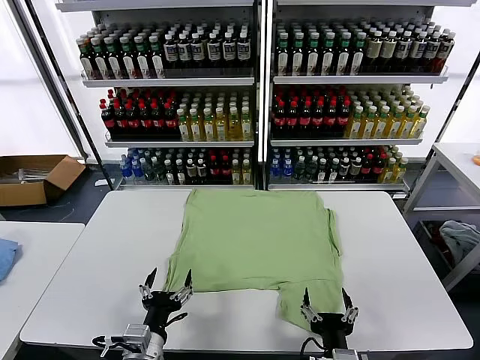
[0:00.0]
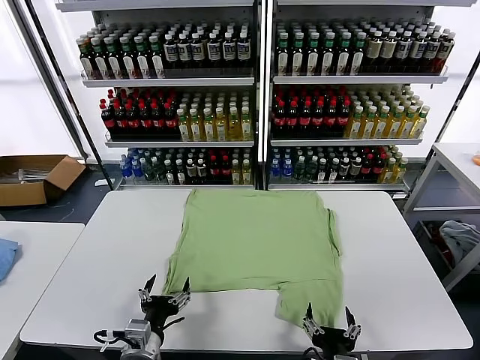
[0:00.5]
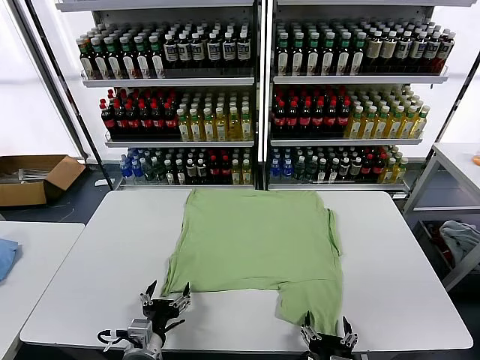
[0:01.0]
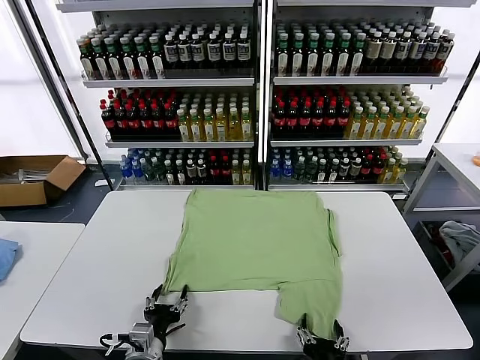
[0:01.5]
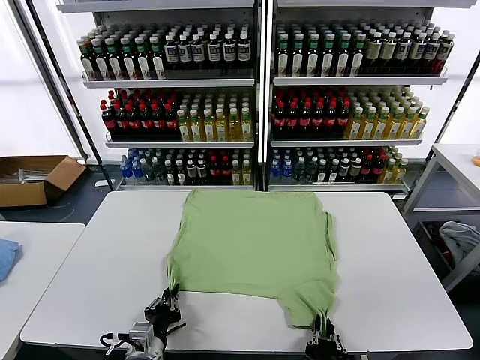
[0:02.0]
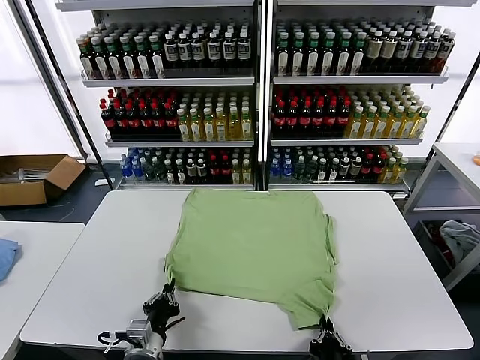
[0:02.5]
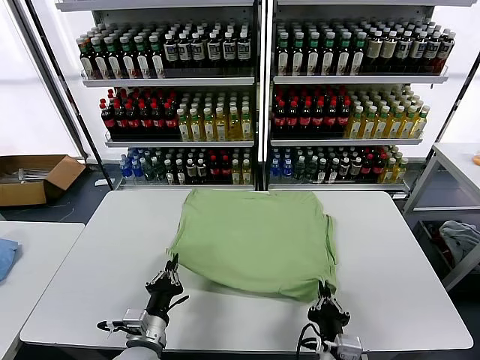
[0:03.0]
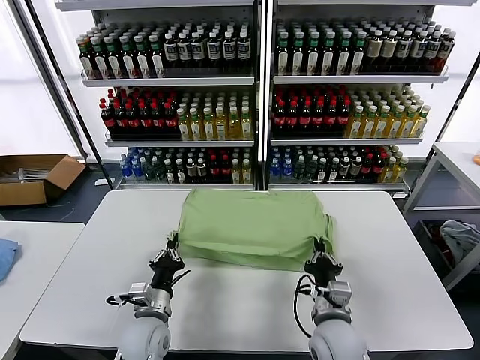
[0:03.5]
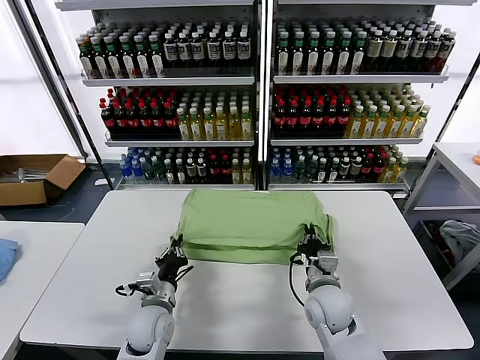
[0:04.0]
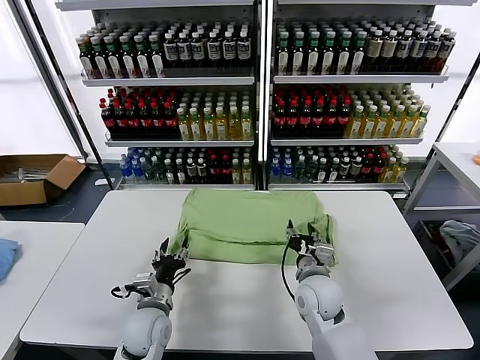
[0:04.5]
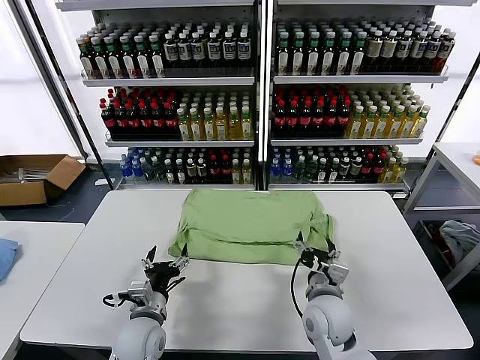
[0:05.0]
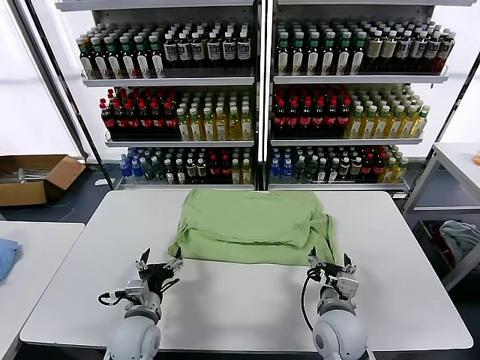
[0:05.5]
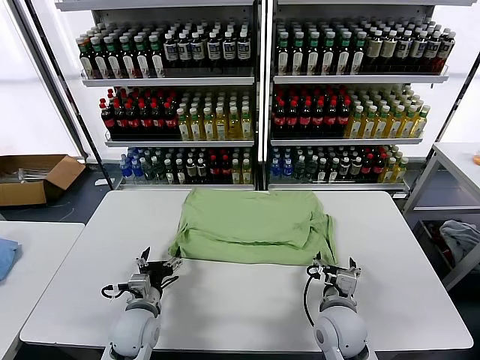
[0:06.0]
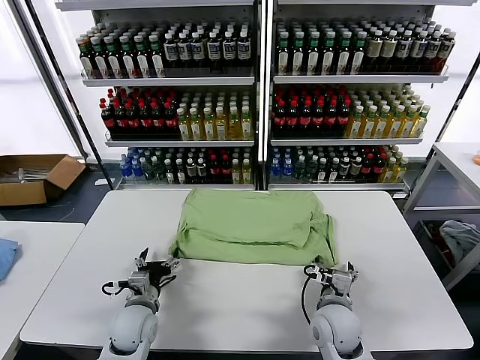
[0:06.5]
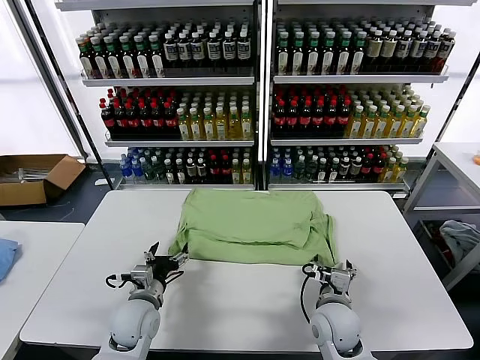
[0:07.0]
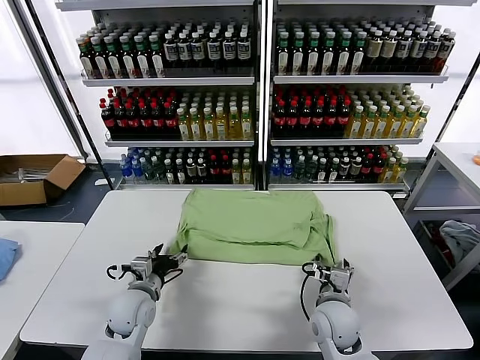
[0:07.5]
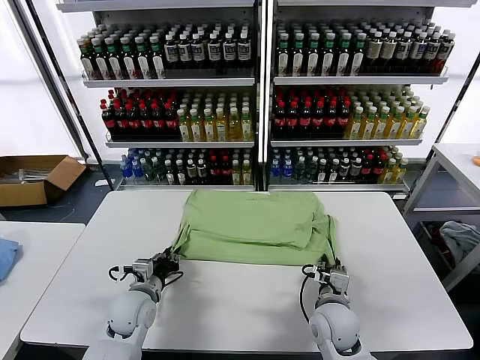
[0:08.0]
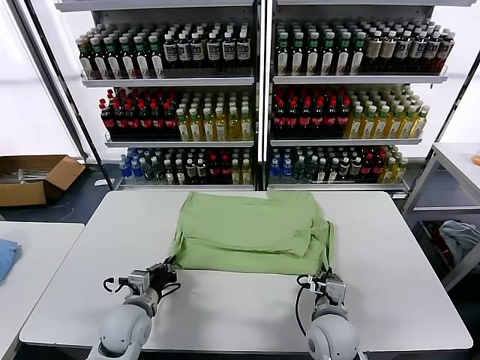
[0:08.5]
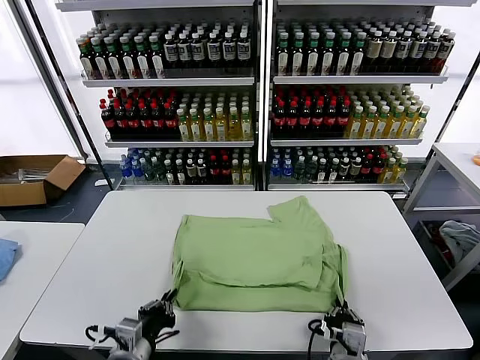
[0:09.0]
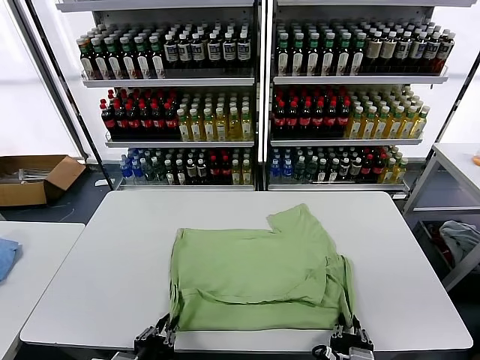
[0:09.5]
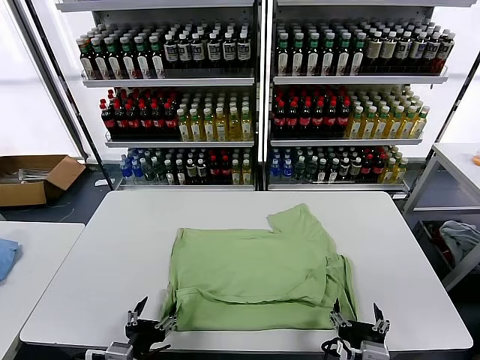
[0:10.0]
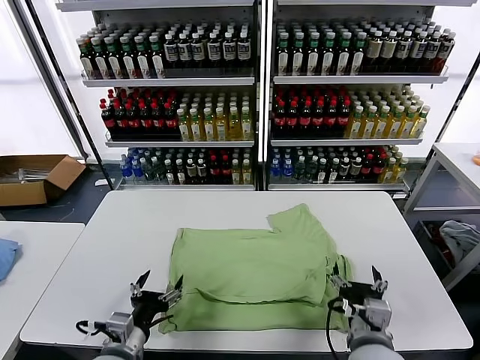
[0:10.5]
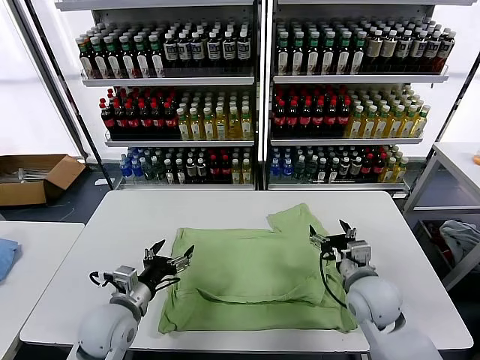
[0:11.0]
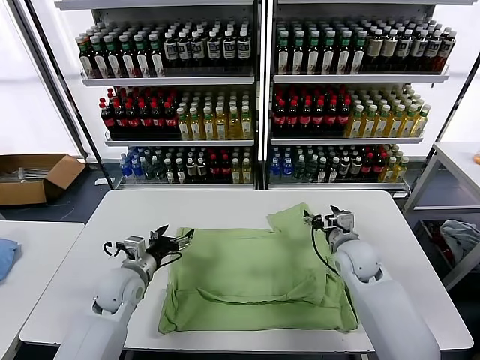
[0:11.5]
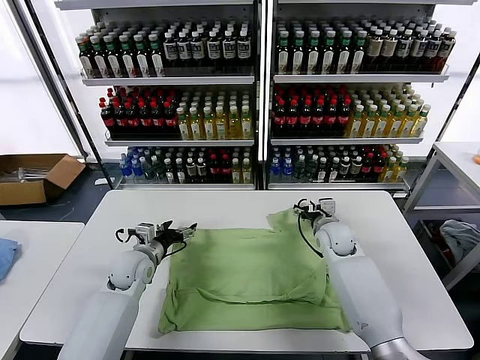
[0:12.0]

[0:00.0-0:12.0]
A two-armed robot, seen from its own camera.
Task of the whole recording: fold and organize the clothes.
Step, 0:00.0 to 0:02.0: use both grippers simultaneously to clamp the lower edge of the clothing fabric.
Step, 0:02.5 to 0:04.5: use both grippers to drag the lower edge of the fabric forward and fold it over the upper edge.
Step, 0:05.0 to 0:09.5: Drag the clothes downward with both gripper.
0:02.0 to 0:04.0: The left gripper heads forward, covering about 10 cm. Meanwhile the right gripper heads forward, covering some 25 cm.
0:04.0 to 0:06.0: The left gripper opens its fingers, while the right gripper travels backward by approximately 5 cm, and opens its fingers.
0:06.0 to 0:08.0: The left gripper closes up. The right gripper closes its fingers.
0:08.0 to 0:10.0: The left gripper heads backward, covering some 20 cm, and opens. The right gripper goes about 20 cm backward and upward, and opens its fingers.
0:10.0 to 0:12.0: The two grippers go roughly 35 cm forward.

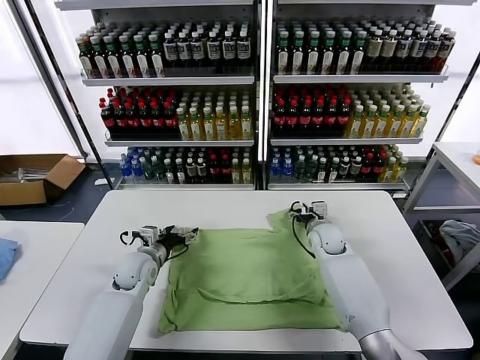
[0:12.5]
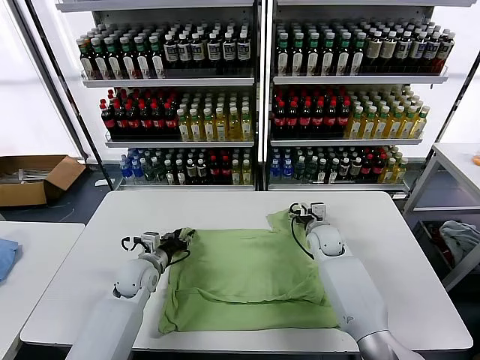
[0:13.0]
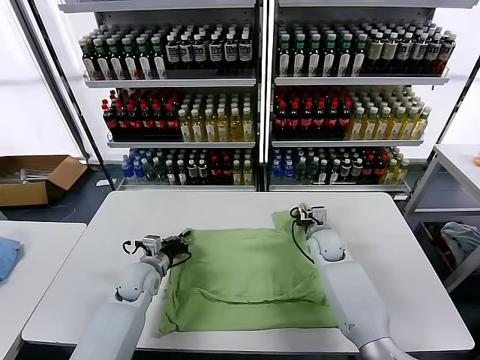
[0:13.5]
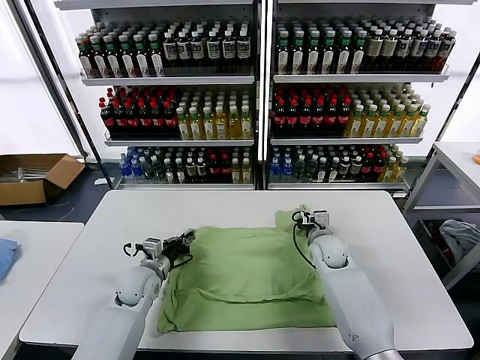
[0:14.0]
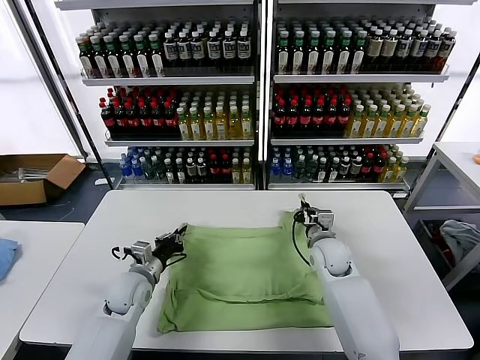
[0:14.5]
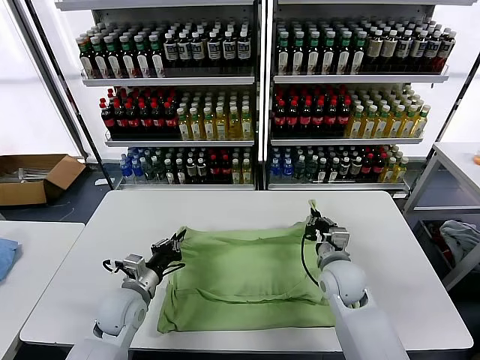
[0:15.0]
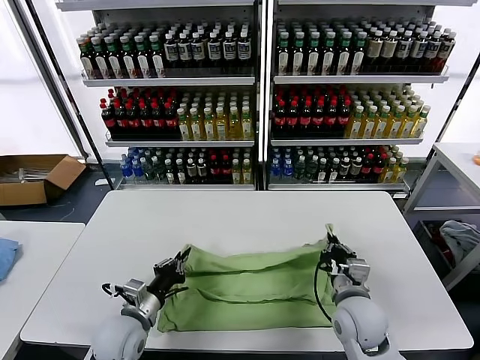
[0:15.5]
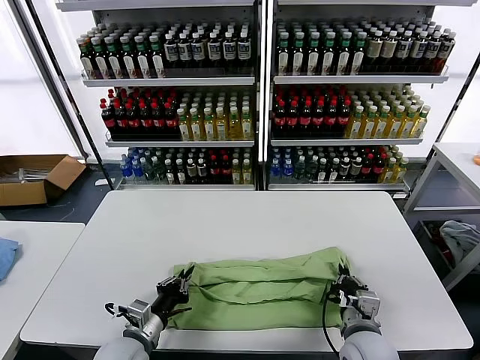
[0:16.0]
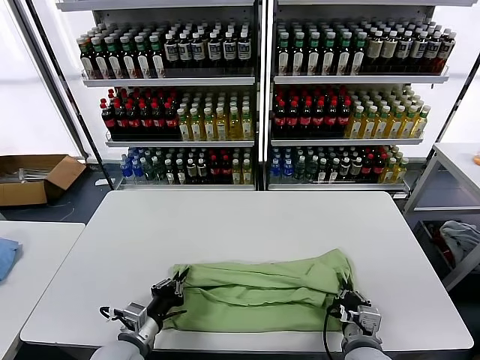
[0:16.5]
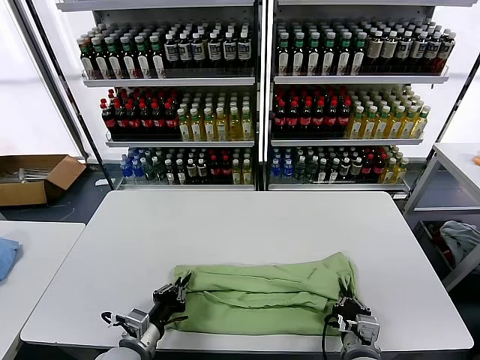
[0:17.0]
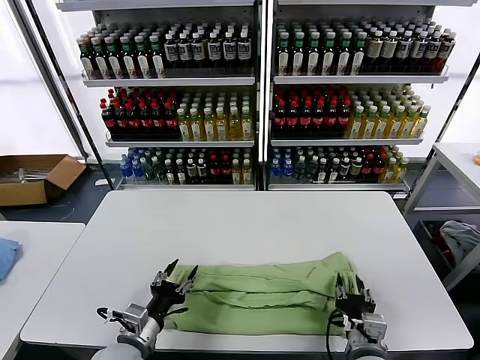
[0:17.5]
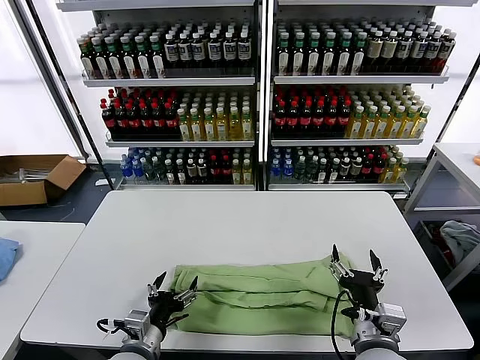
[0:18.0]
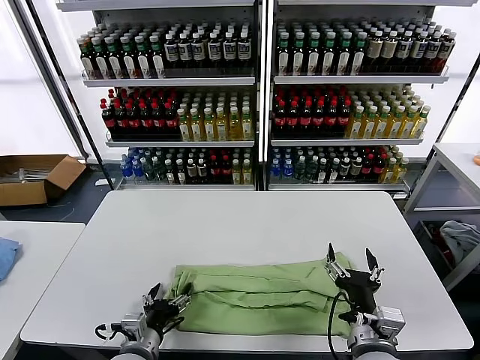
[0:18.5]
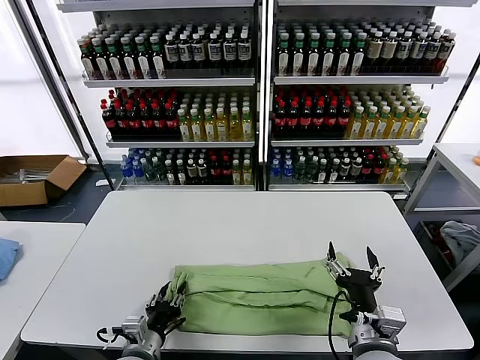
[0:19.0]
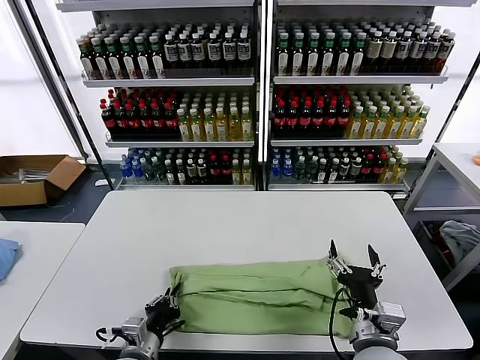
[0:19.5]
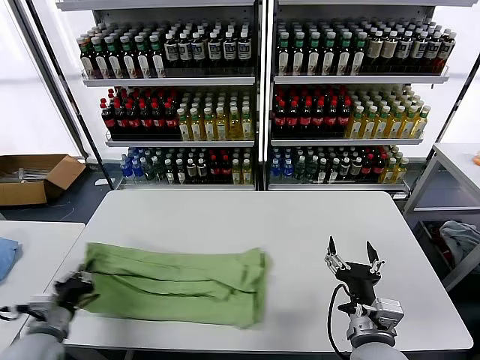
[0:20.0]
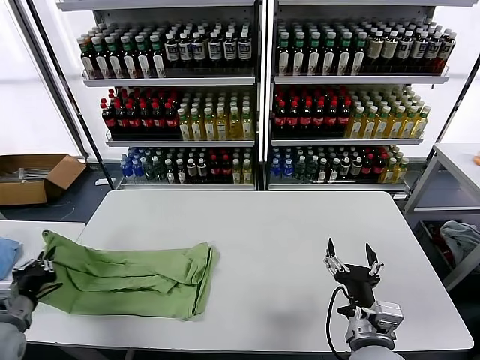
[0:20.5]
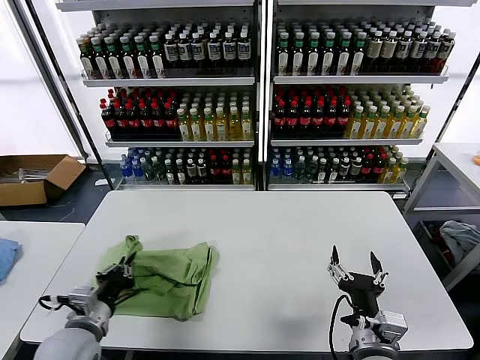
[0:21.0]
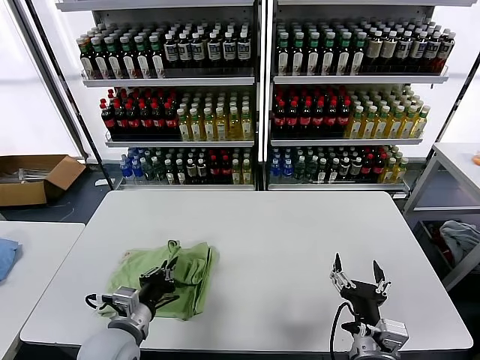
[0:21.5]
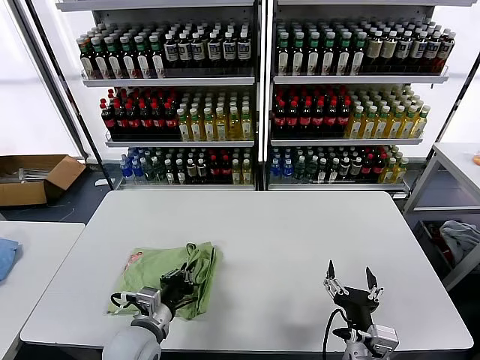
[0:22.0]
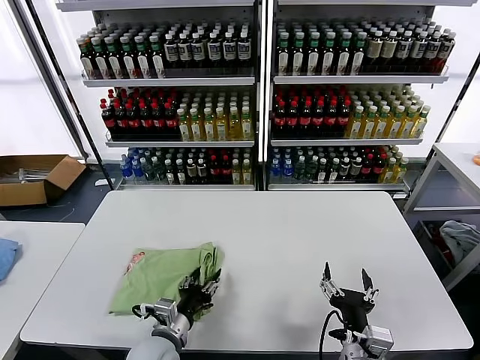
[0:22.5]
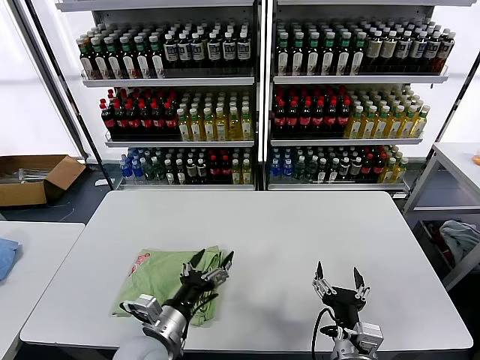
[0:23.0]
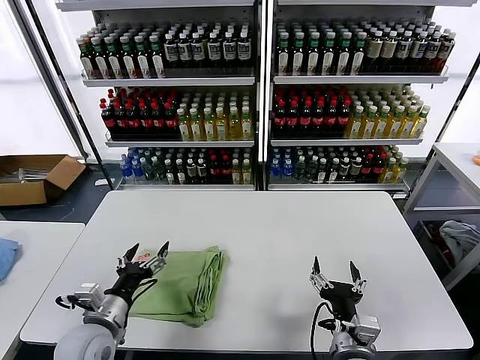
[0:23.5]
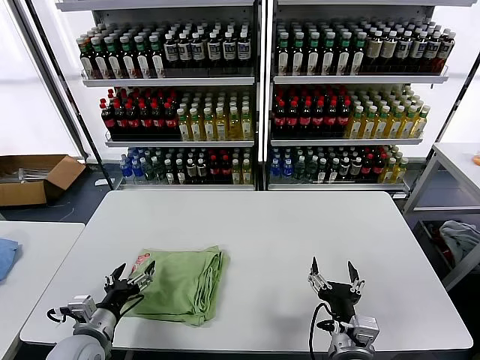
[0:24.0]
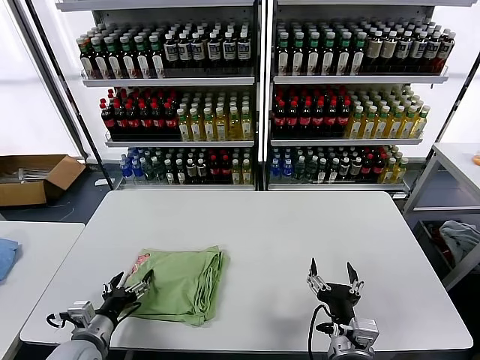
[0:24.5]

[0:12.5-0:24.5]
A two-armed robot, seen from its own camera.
Task of the whole recording: fold and organize the clothes.
Step, 0:14.0 to 0:17.5: use both grippers to drag the upper edge of the fabric backward and fold it over the lower edge.
Step, 0:18.0 to 0:19.0: use the left gripper to clamp the left edge of the fabric.
Step, 0:19.5 to 0:22.5: use the left gripper to drag the left edge of the fabric to the left and folds it over the right edge.
0:12.5 to 0:14.5: Both grippers move backward, approximately 5 cm. The right gripper closes. Meanwhile the left gripper closes up.
0:14.5 to 0:16.5: The left gripper is displaced backward by approximately 15 cm; the right gripper moves backward, about 25 cm.
0:16.5 to 0:18.5: The left gripper opens. Meanwhile the right gripper heads upward, covering approximately 5 cm, and opens its fingers.
0:18.5 to 0:20.5: The left gripper moves to the left, approximately 25 cm, and closes up.
0:20.5 to 0:22.5: The left gripper travels to the right by some 30 cm, and opens up.
0:22.5 to 0:24.5: The left gripper goes about 15 cm to the left, and opens its fingers.

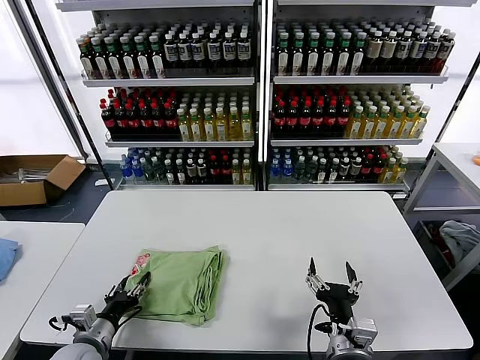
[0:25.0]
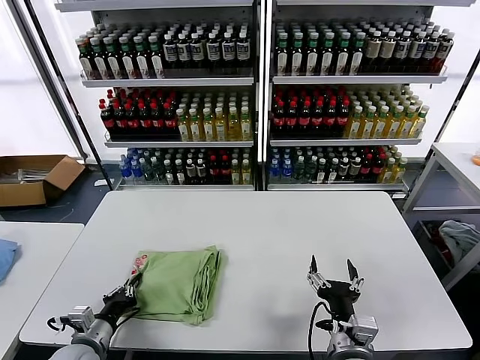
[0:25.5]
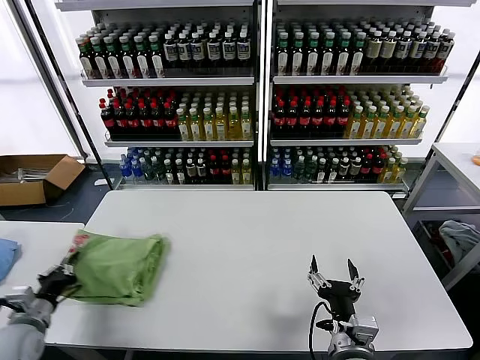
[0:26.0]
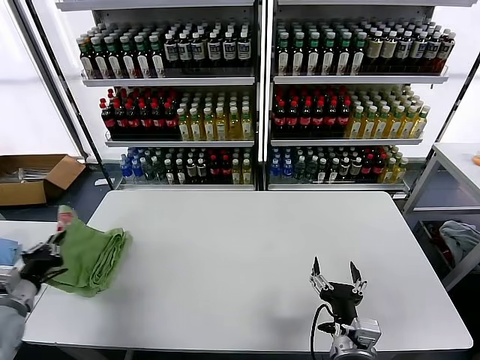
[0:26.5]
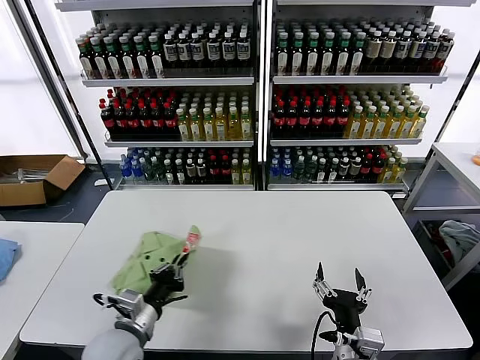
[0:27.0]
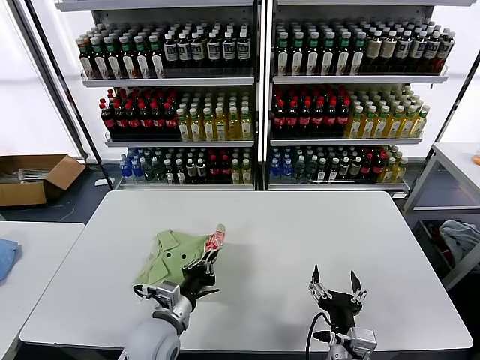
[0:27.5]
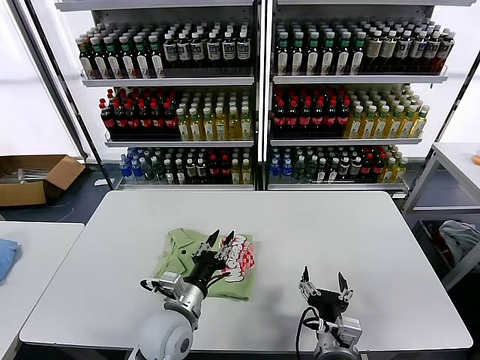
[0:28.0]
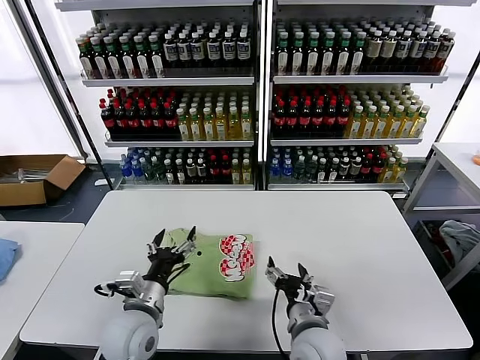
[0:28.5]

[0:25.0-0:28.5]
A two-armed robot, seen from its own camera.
Task of the whole recording: fold and organize the clothes.
Step, 0:25.0 to 0:28.0: Flip the folded clothes over with left gripper.
0:25.0 to 0:27.0: The left gripper is displaced to the right and upward by approximately 10 cm, and closes its fingers.
0:27.0 to 0:28.5: The left gripper is displaced to the right by approximately 5 cm, and opens up, while the right gripper moves forward and to the left, roughly 10 cm.
